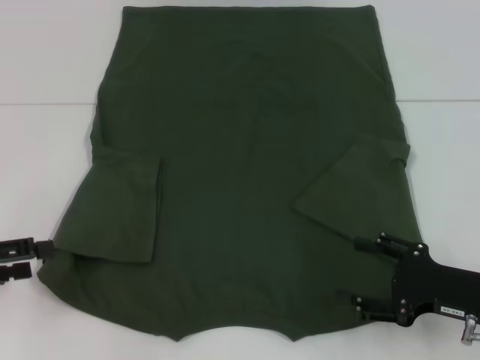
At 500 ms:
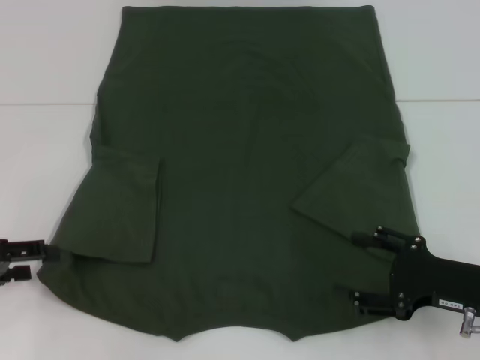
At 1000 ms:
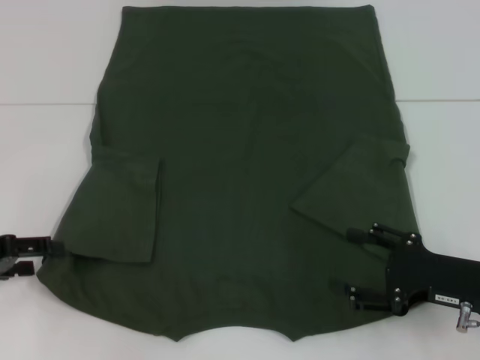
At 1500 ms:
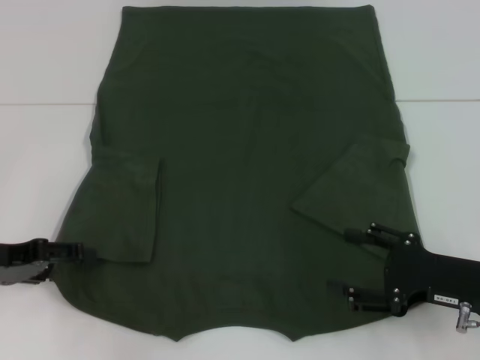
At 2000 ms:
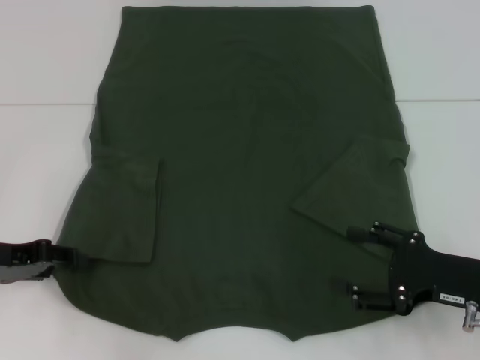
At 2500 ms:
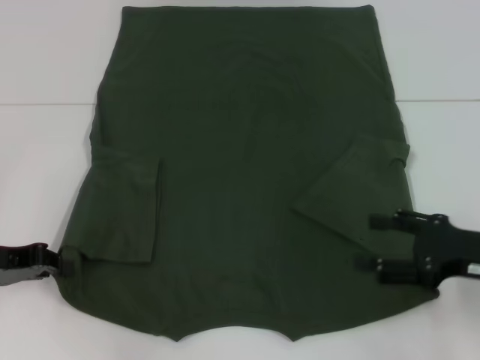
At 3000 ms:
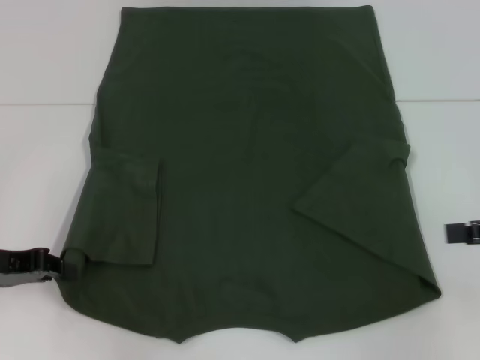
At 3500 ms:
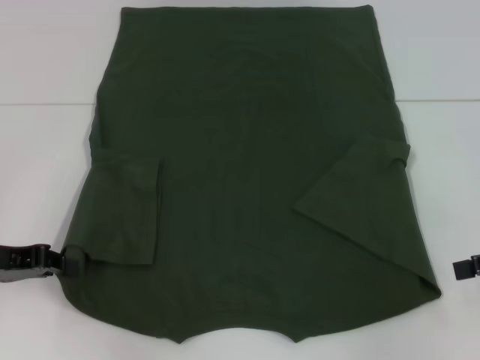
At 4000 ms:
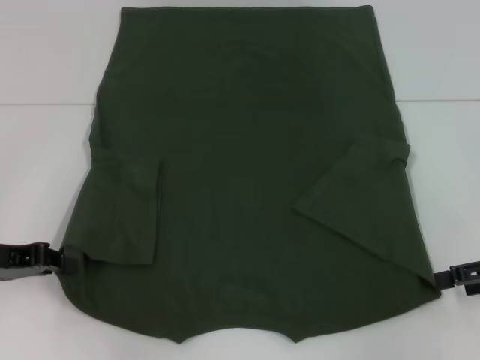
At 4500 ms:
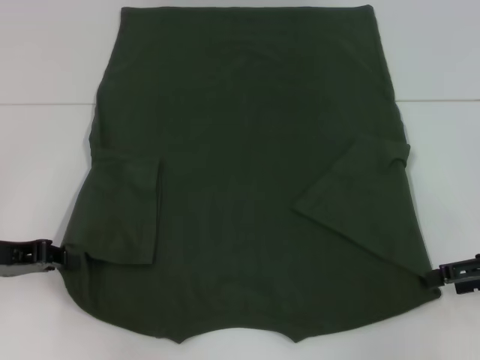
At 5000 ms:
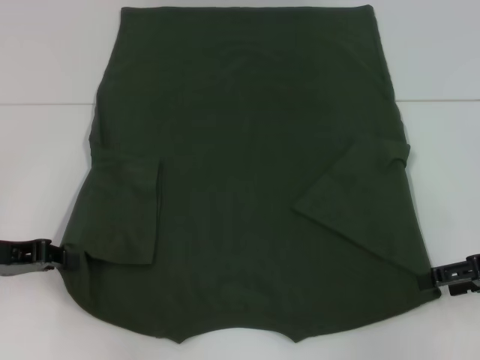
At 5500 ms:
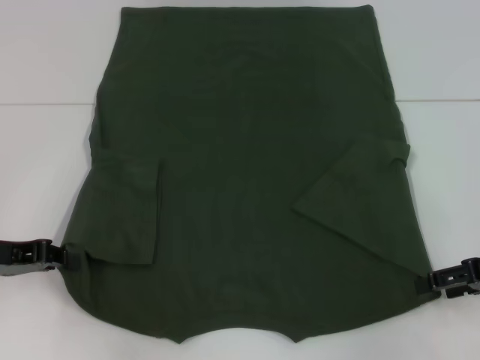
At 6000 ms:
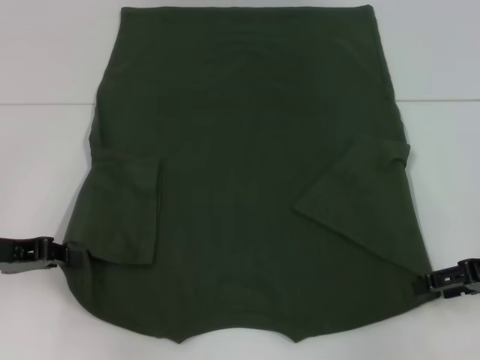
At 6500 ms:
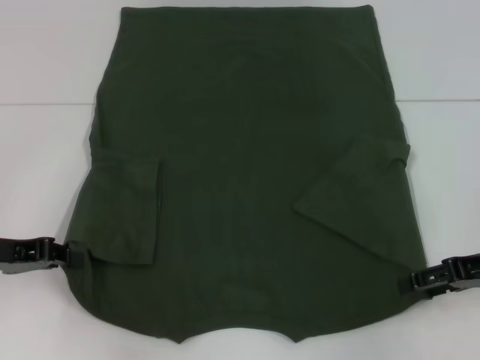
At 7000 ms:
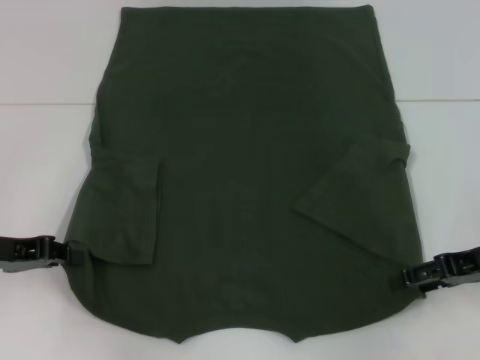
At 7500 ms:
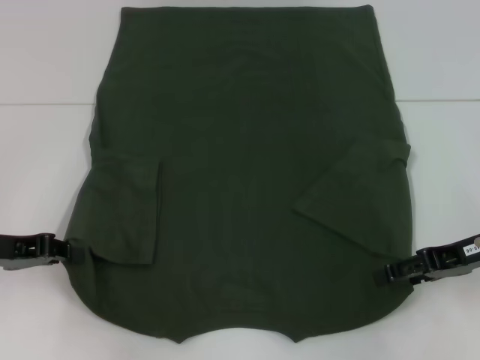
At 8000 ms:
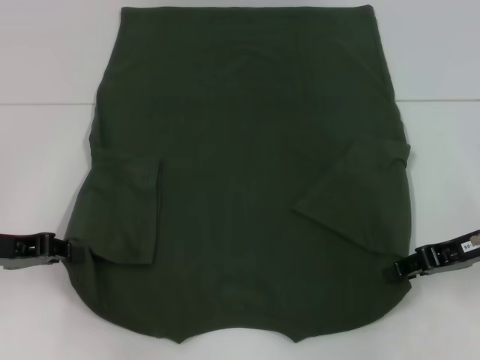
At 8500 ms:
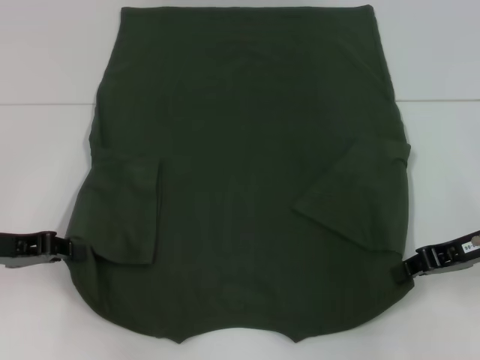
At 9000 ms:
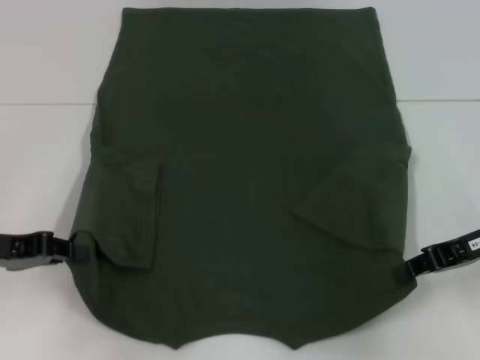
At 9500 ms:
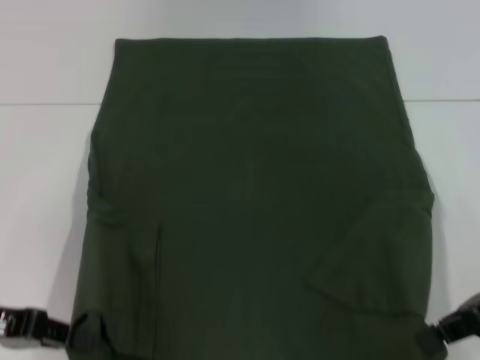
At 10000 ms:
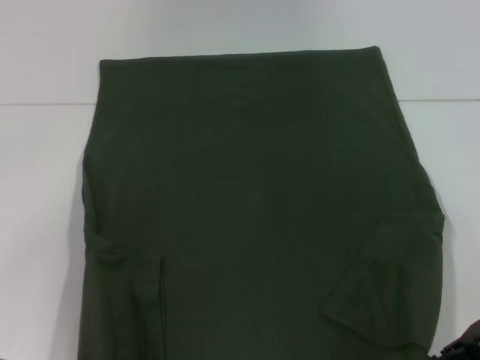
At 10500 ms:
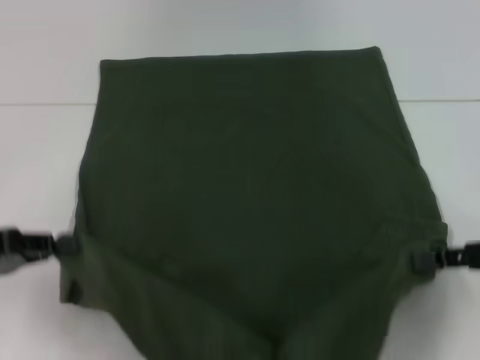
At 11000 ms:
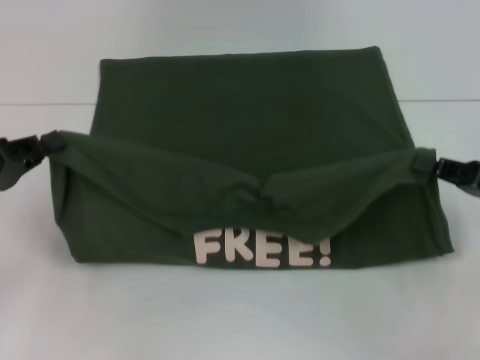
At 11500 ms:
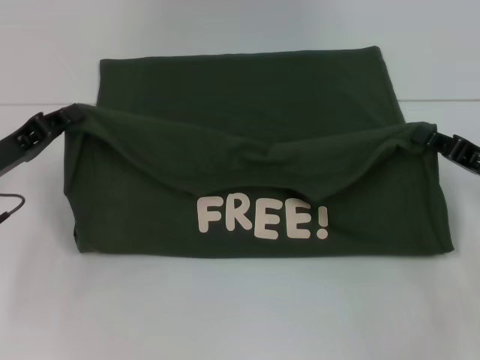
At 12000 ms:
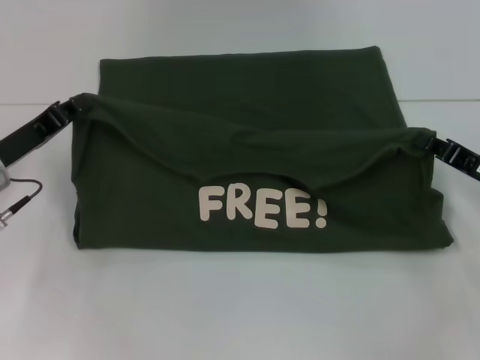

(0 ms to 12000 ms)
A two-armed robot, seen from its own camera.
Step, 0 ms - 2500 ms: Grab the bottom left corner with your left hand.
Step, 3000 ms - 8000 ms: Grab the bottom right corner with your right hand.
0 ms - 2000 ms: The left gripper moves roughly 5 cm.
2000 ms - 4000 ms: The right gripper moves to the right and upward, roughly 10 cm. The left gripper closes up.
4000 ms - 6000 ms: The grippers stay close to where they were, moving slightly.
6000 ms - 8000 ms: The right gripper closes its fingers.
8000 ms - 10000 ms: The grippers both shift backward by roughly 5 cm. The right gripper closes up.
10000 ms - 12000 ms: The right gripper is displaced downward and forward by some 10 cm; the left gripper is displaced forward by about 10 cm.

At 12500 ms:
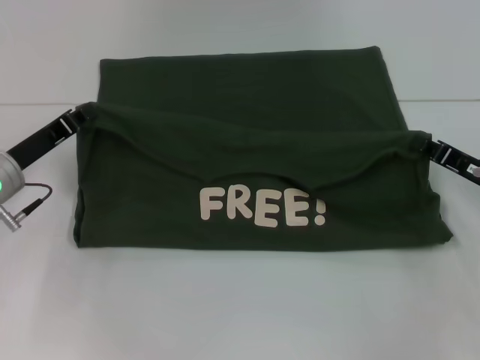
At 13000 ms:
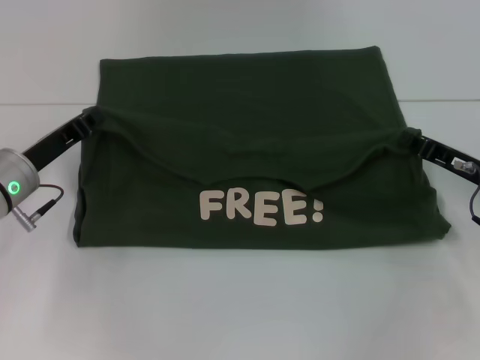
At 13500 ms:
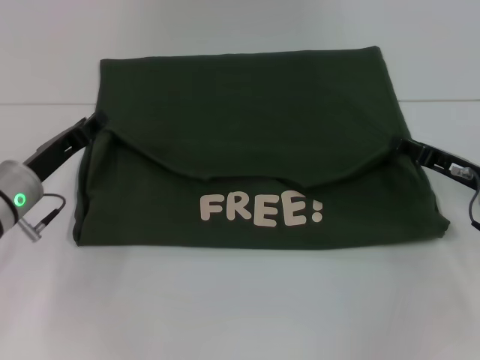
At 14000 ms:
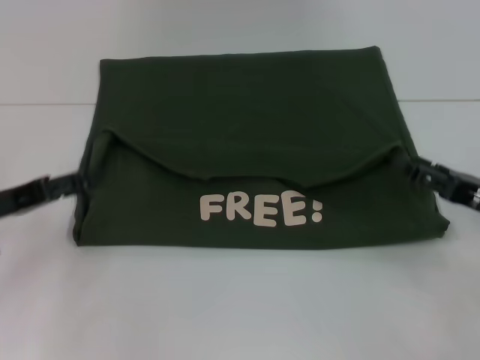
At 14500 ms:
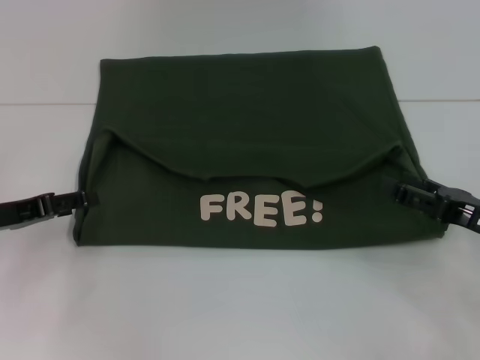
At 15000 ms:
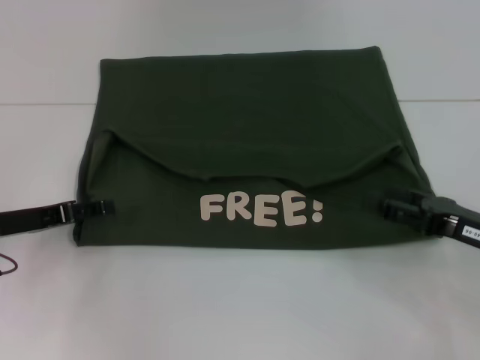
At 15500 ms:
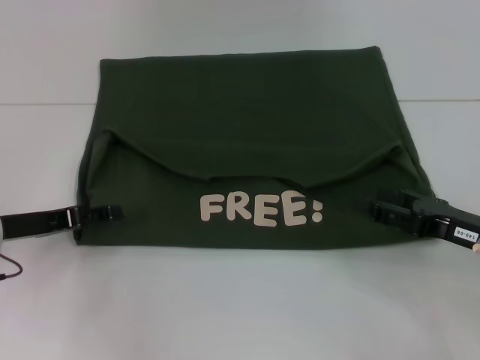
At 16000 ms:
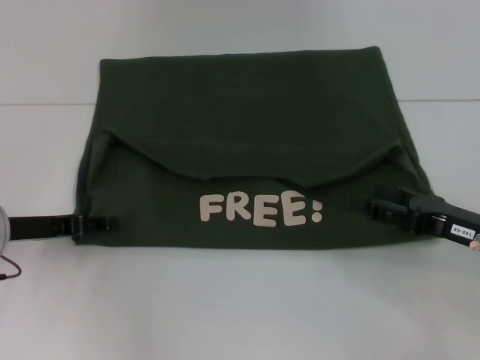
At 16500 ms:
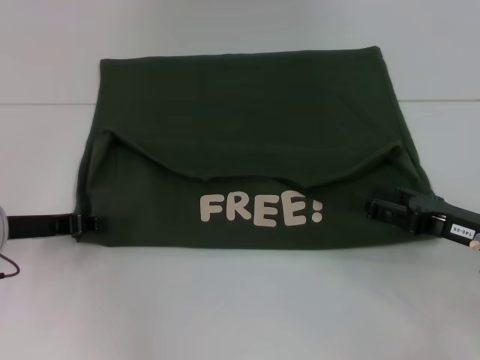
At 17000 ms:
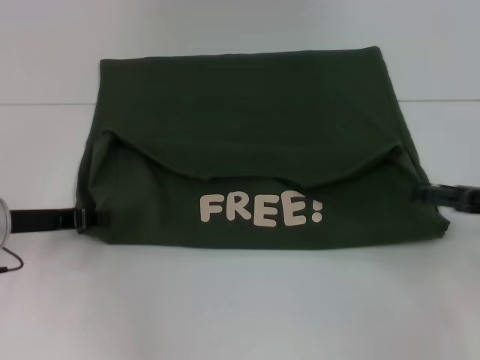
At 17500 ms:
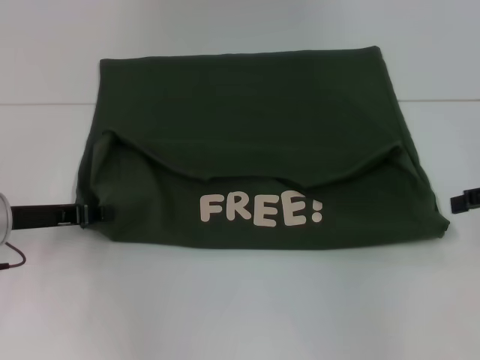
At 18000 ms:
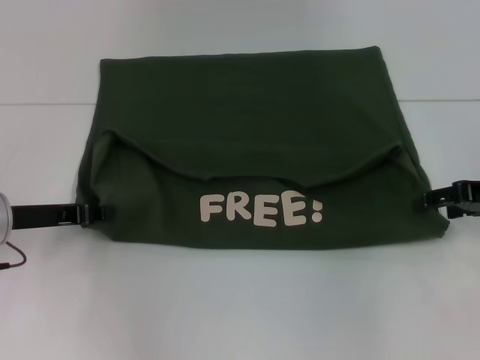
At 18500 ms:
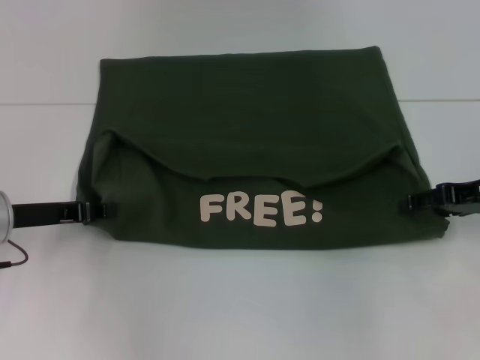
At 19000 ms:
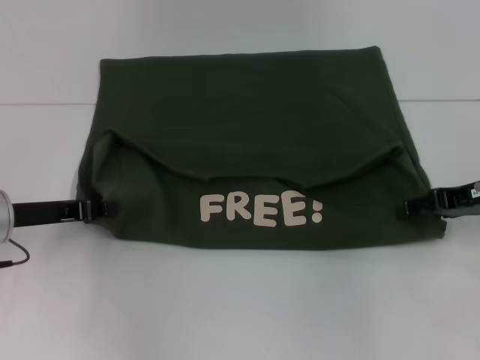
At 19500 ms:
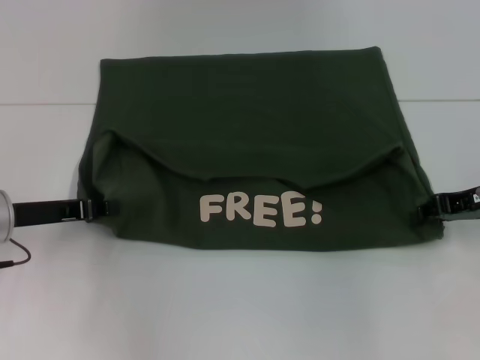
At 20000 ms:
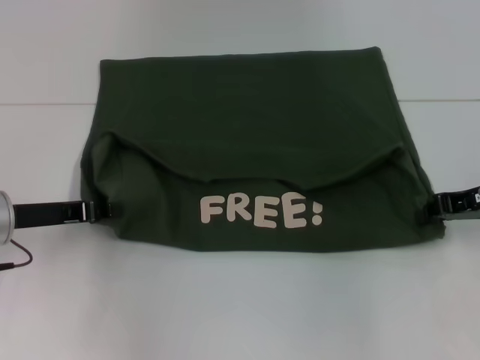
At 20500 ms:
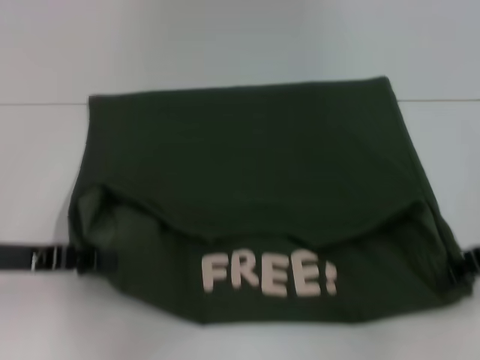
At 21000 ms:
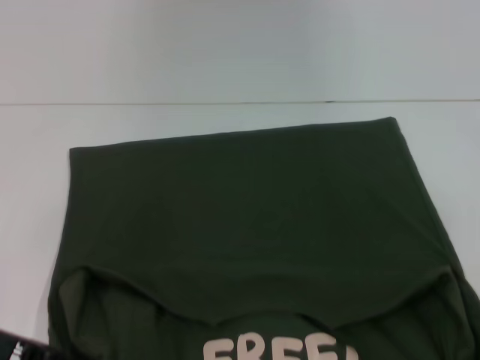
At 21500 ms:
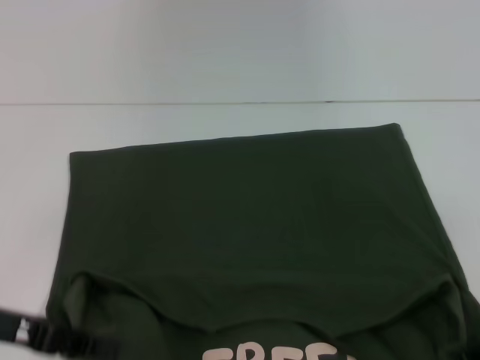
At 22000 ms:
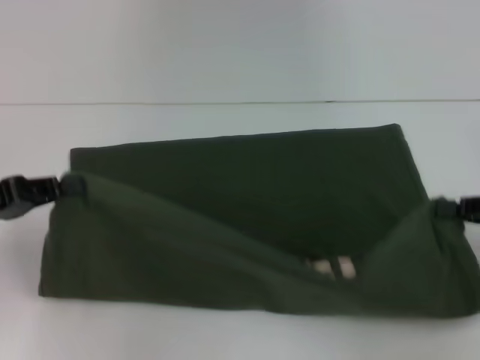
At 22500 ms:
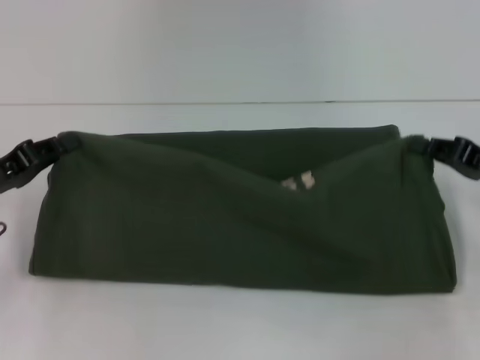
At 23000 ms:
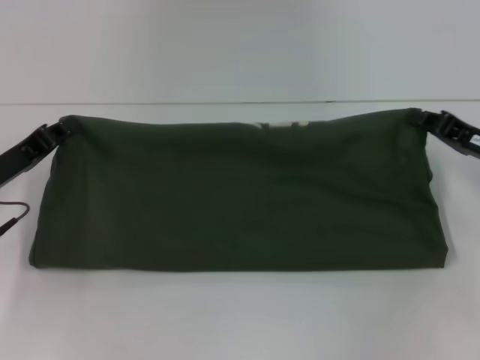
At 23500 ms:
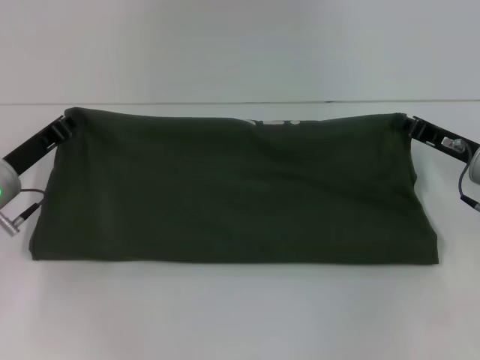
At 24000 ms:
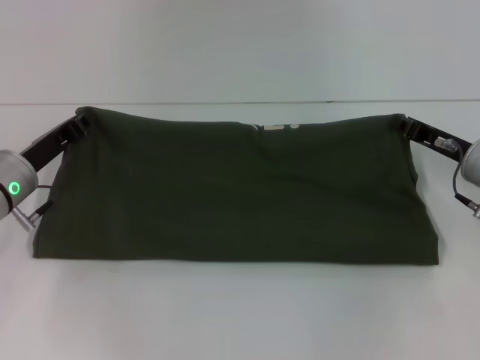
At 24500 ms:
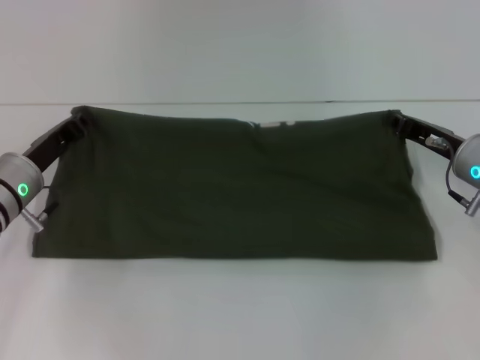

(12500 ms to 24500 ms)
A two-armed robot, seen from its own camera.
Step, 14500 ms - 21000 ms: Pull the clothes with your left hand.
Step, 14500 ms - 21000 ms: Pull the clothes with your right hand.
12500 ms - 14500 ms: The right gripper is displaced backward by some 5 cm, and opens. The left gripper shifts by some 5 cm, and opens up.
14500 ms - 16500 ms: The left gripper closes.
16500 ms - 18500 ms: The right gripper shifts approximately 10 cm forward and upward.
18500 ms - 20500 ms: The right gripper closes up. Meanwhile the left gripper moves approximately 5 cm.
22500 ms - 24500 ms: The right gripper goes approximately 10 cm to the left and forward; the left gripper shifts about 10 cm to the right and forward.

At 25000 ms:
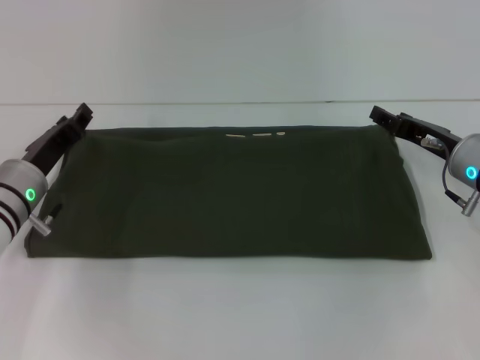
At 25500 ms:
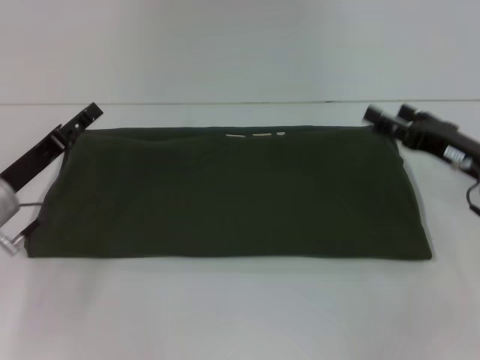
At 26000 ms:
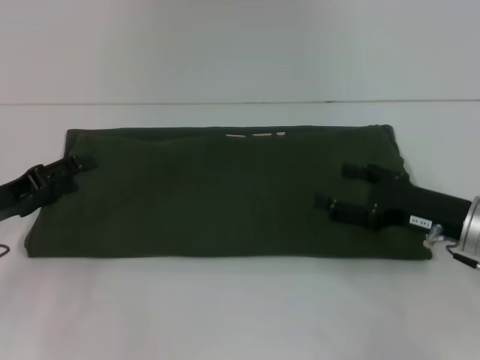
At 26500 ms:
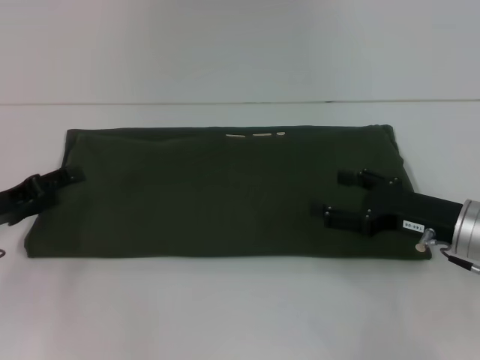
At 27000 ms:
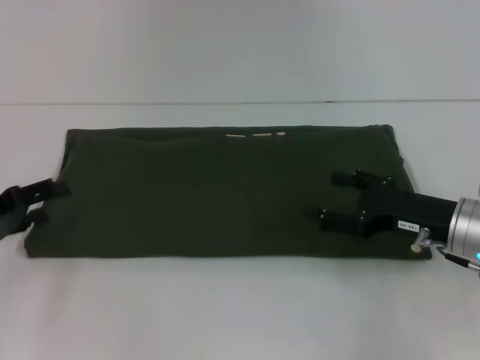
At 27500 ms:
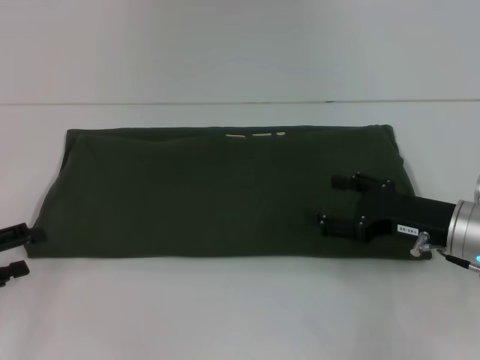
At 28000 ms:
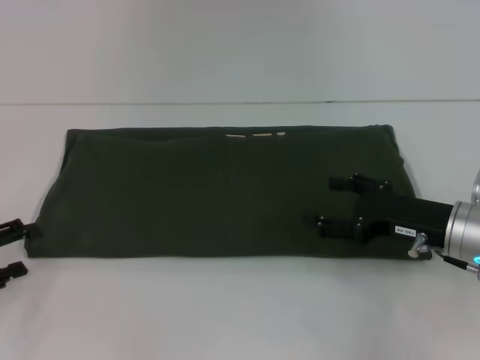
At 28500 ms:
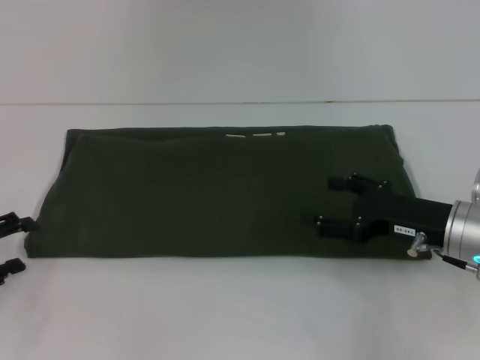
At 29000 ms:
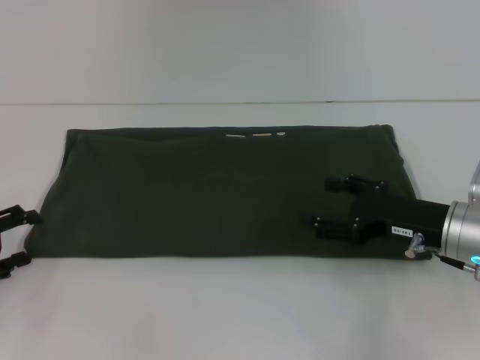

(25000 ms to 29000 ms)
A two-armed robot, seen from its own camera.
25000 ms - 27000 ms: The left gripper is displaced to the left and backward by some 10 cm, and opens. Meanwhile the right gripper moves backward, some 5 cm, and opens its fingers.
